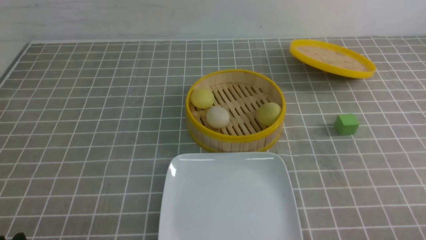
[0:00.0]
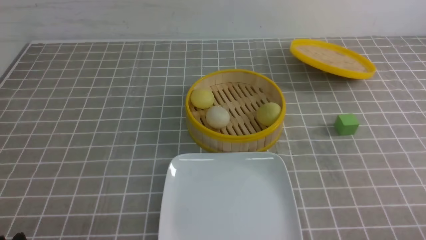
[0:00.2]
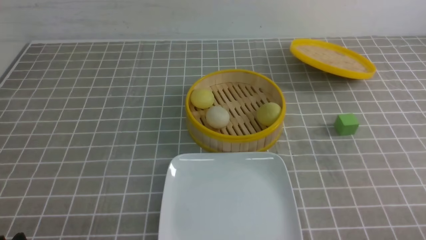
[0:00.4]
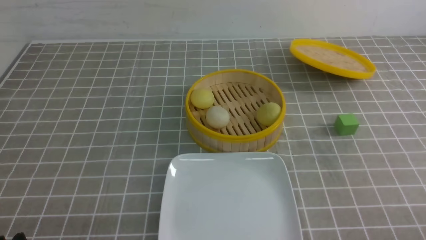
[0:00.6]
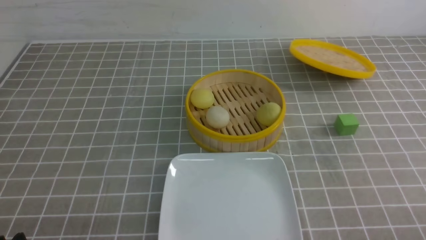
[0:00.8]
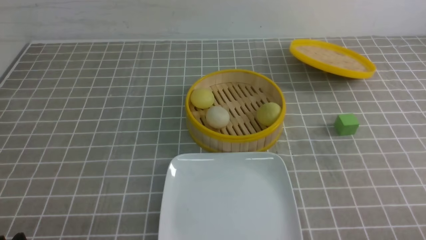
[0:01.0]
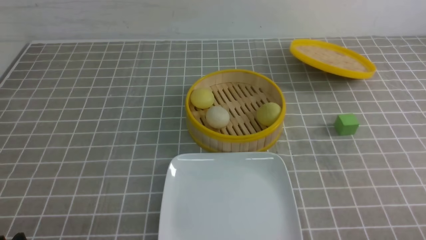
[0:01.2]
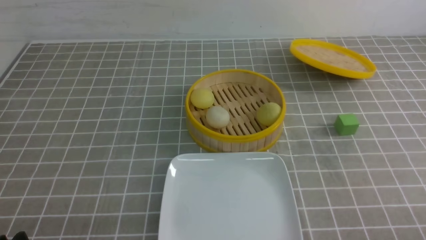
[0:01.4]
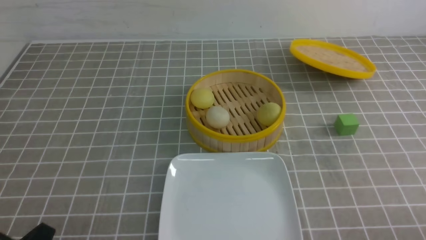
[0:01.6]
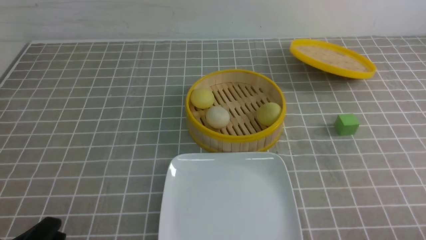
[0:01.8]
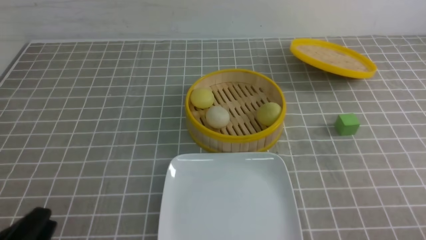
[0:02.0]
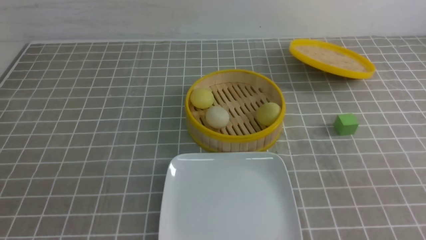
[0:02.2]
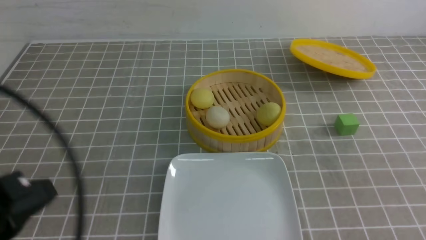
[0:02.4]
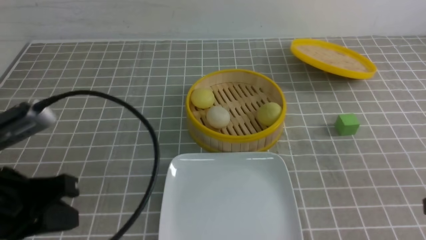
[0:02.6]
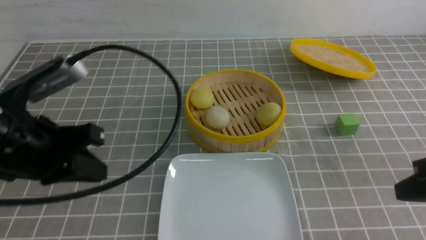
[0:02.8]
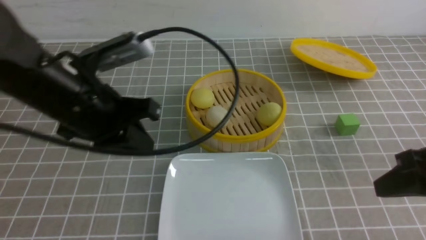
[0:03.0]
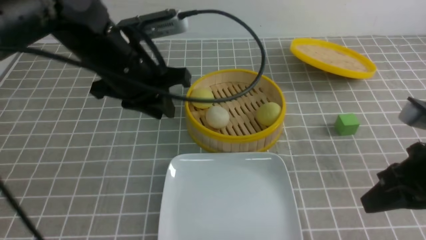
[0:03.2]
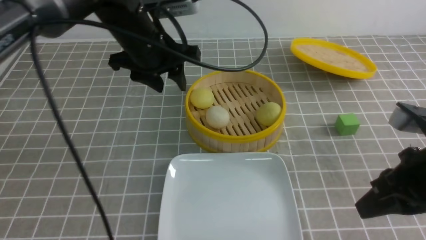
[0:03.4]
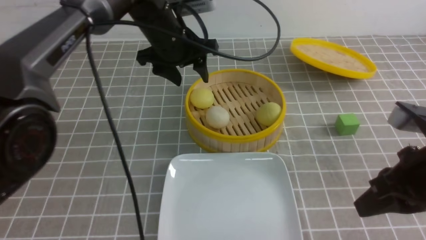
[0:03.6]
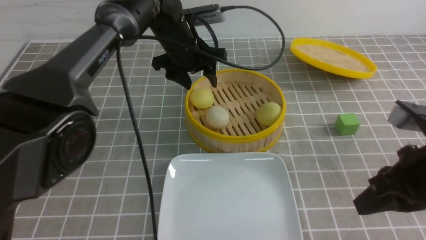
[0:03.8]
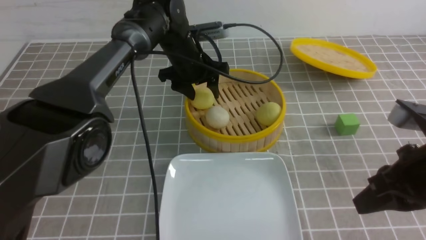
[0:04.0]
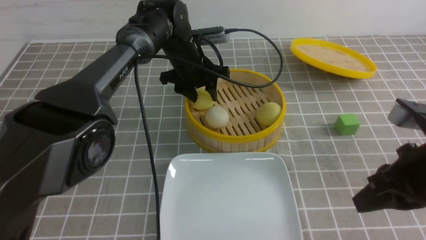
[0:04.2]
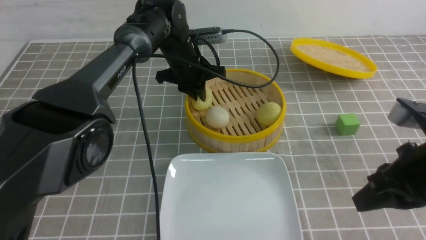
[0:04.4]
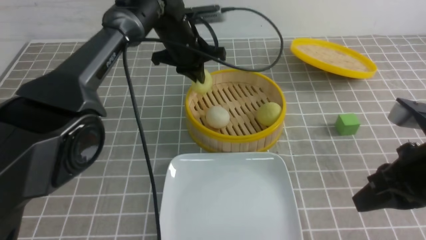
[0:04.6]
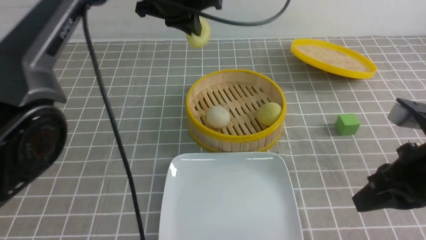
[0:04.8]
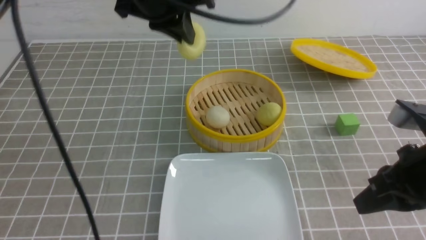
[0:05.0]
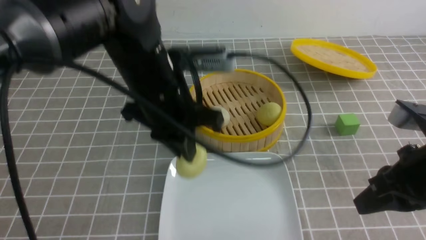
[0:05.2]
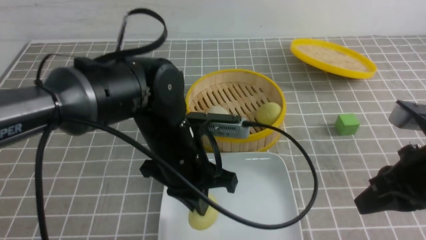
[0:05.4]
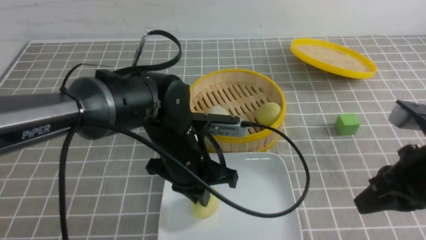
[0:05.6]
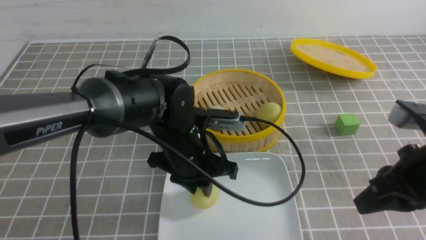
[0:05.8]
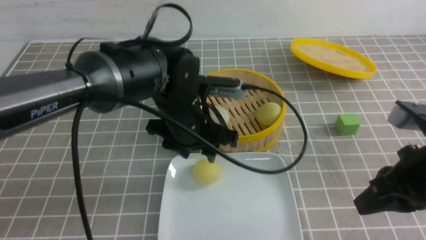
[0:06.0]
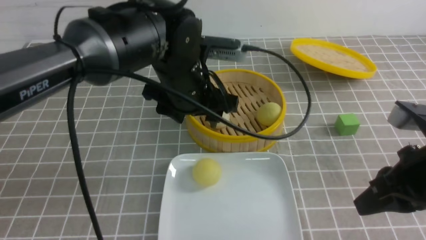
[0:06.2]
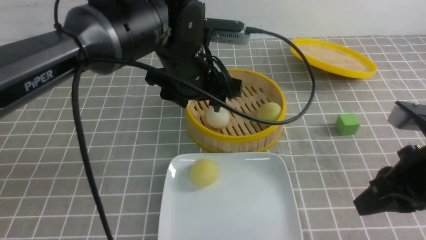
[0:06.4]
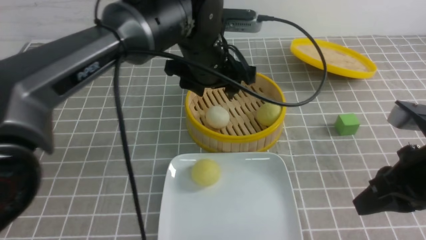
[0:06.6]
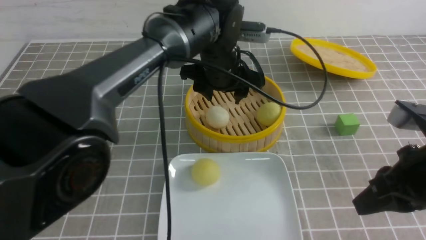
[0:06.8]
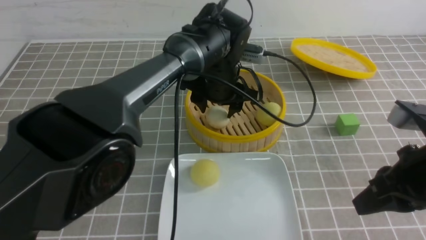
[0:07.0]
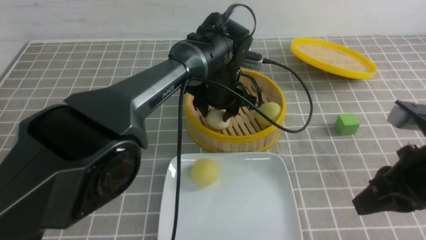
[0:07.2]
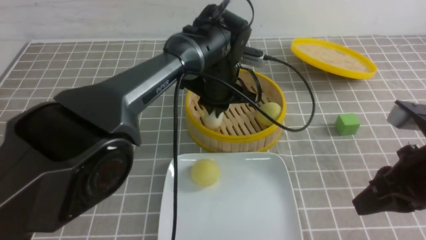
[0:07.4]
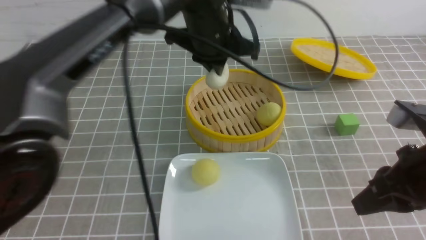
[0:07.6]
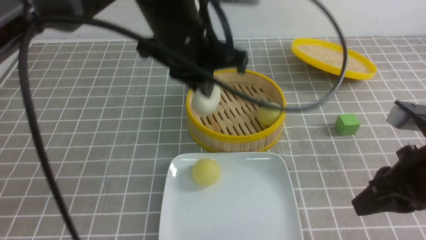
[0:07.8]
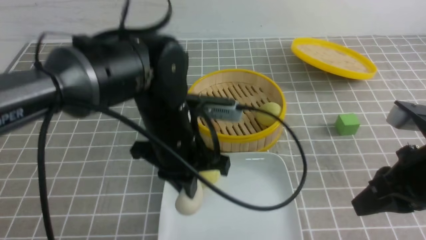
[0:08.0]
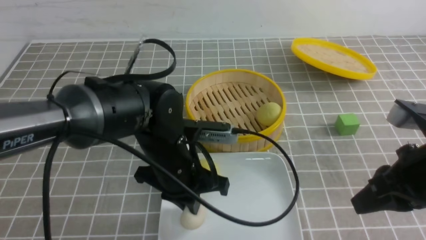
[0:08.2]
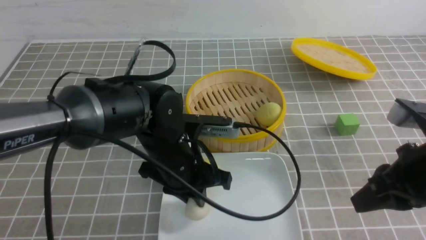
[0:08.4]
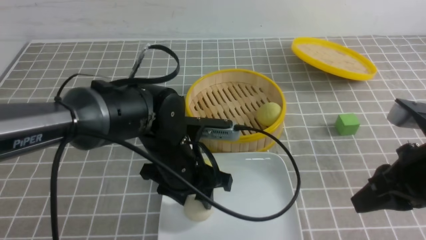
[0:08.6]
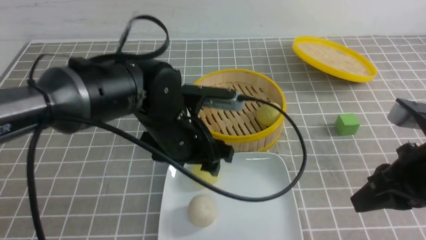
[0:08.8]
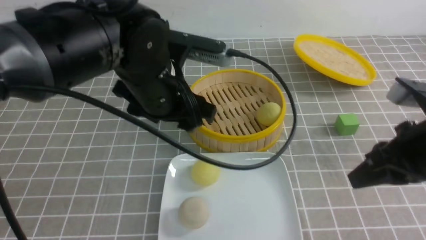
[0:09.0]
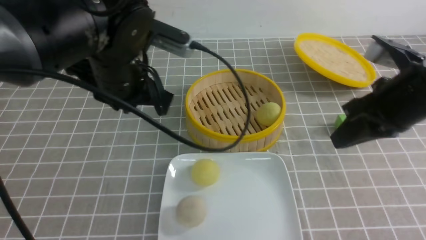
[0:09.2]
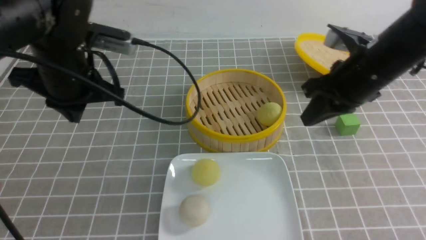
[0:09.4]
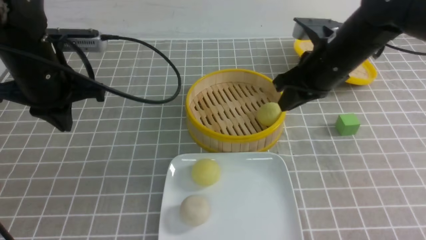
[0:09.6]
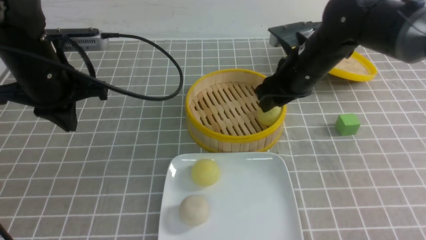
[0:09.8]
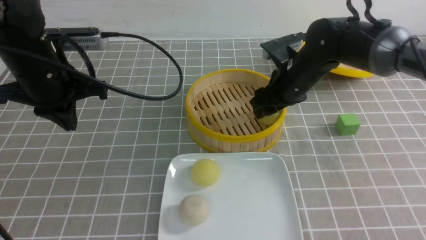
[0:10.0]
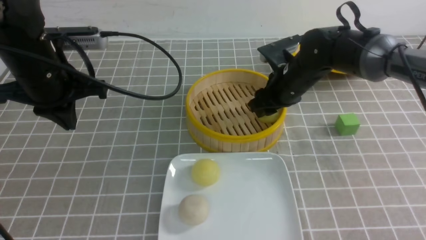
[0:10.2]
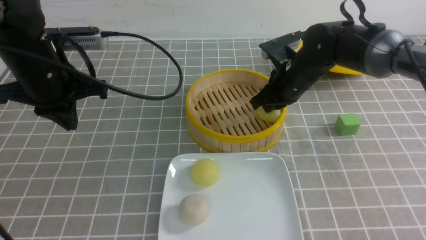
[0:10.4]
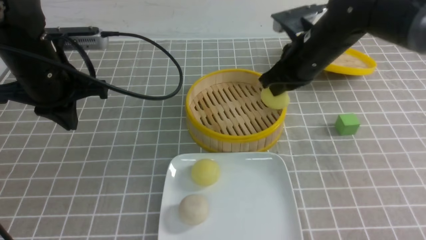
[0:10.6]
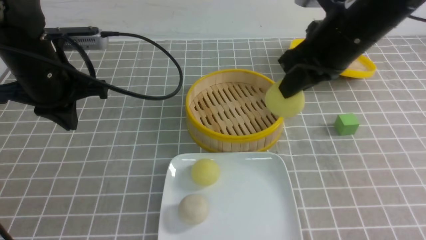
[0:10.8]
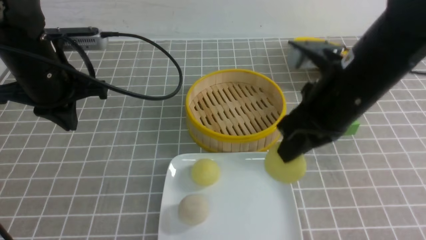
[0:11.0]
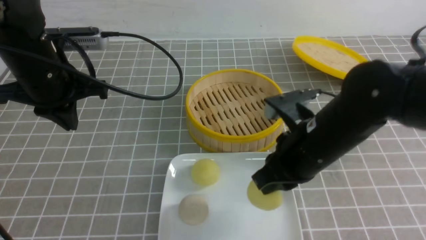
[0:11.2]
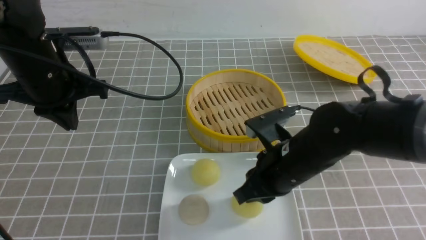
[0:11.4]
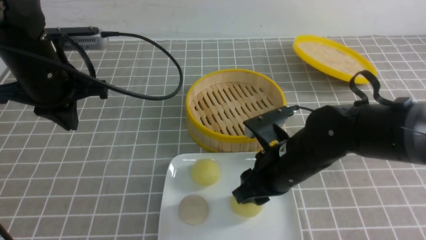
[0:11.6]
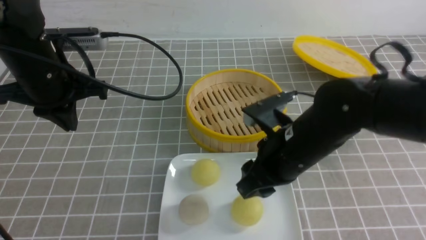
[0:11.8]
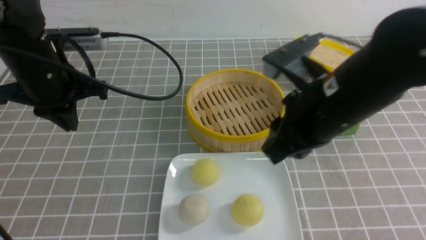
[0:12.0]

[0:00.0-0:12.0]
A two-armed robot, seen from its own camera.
Step, 0:00.0 to 0:04.4: use the left arm to grab the steamed stuffed bun that is closest to it.
Step, 0:04.6 to 0:05.8: use the left arm to put the steamed stuffed bun into the plate.
Step, 0:06.2 to 0:07.4: use the left arm to grab the steamed stuffed bun that is closest to it.
Step, 0:07.6 to 0:08.6: use the left arm to put the steamed stuffed bun into the plate.
Step, 0:08.8 to 0:10.4: use the right arm to grab the steamed stuffed bun that is closest to it.
Step, 0:10.6 to 0:11.6: use the right arm to put the steamed stuffed bun into the plate.
0:01.6 to 0:03.0: The left gripper shifts some 30 cm forward, upward and to the right; the right gripper is displaced forward and upward by approximately 15 cm, and closes up.
0:03.0 to 0:04.4: The left gripper goes roughly 25 cm forward, to the right and downward, and opens, then closes again.
0:04.4 to 0:06.0: The left gripper heads backward, covering some 15 cm, and opens up.
0:06.0 to 0:07.6: The left gripper moves upward and forward, roughly 10 cm, and closes.
0:07.6 to 0:09.0: The left gripper is displaced to the left and backward by approximately 10 cm, moves roughly 15 cm downward and comes back, and opens.
0:09.0 to 0:10.4: The right gripper is displaced forward and to the left by approximately 20 cm, and opens, then closes again; the left gripper is displaced to the left by about 15 cm, and closes its fingers.
0:10.4 to 0:12.0: The right gripper shifts some 20 cm backward and upward, and opens and closes again.

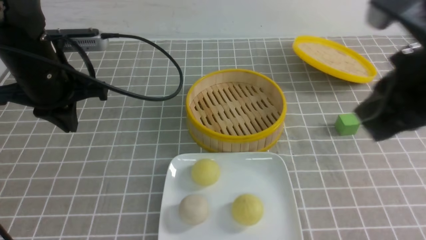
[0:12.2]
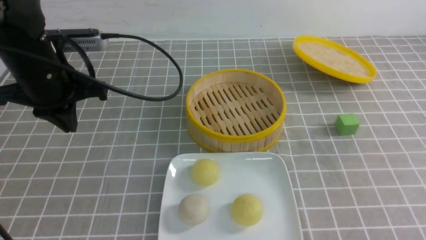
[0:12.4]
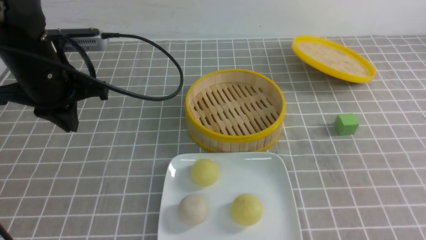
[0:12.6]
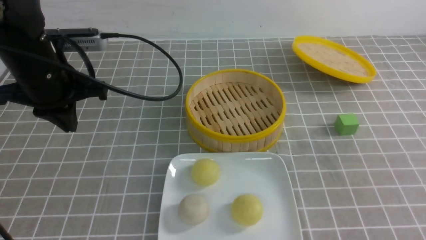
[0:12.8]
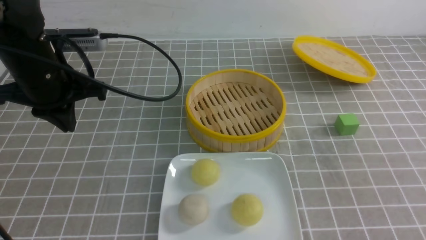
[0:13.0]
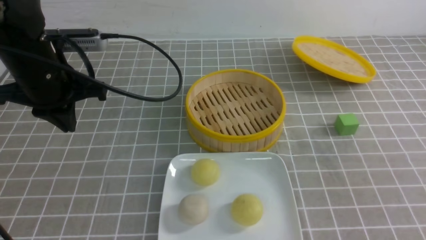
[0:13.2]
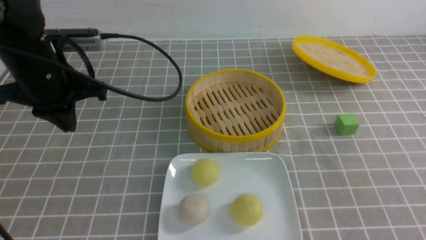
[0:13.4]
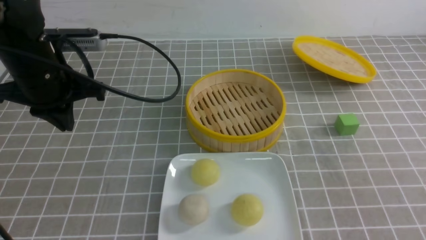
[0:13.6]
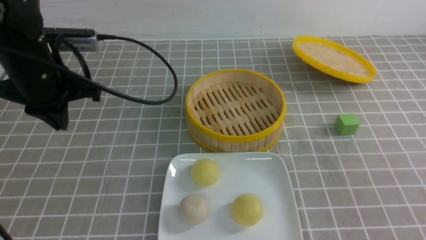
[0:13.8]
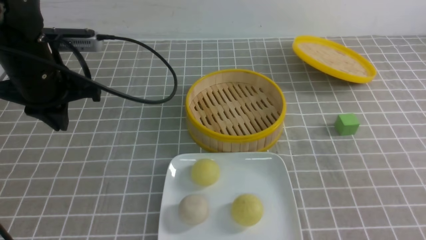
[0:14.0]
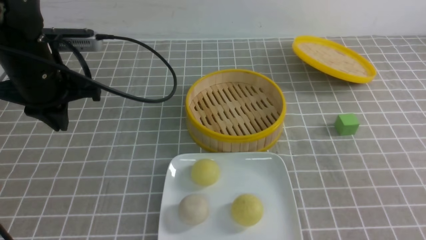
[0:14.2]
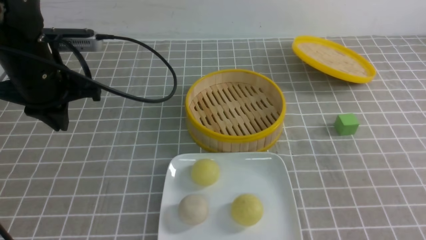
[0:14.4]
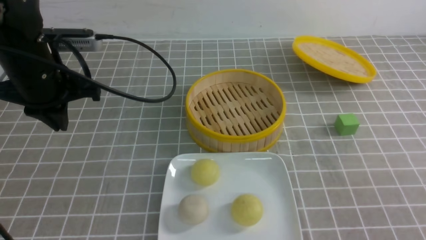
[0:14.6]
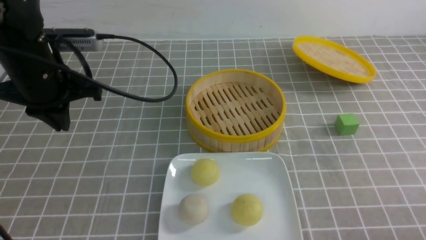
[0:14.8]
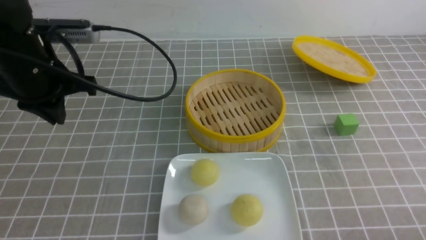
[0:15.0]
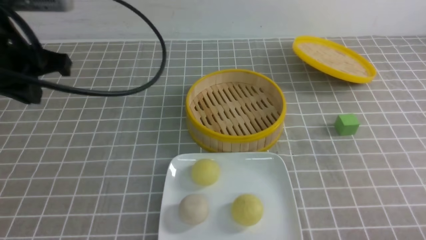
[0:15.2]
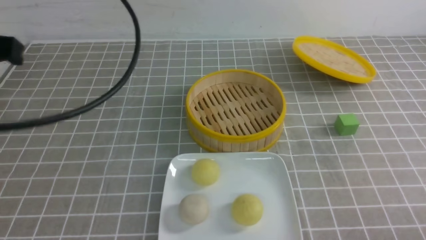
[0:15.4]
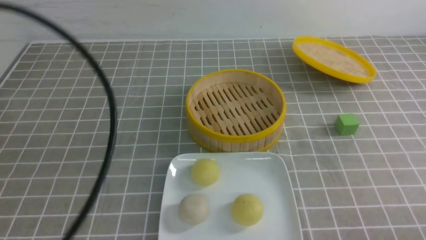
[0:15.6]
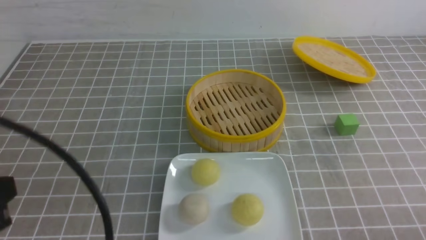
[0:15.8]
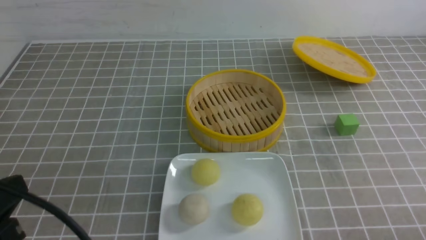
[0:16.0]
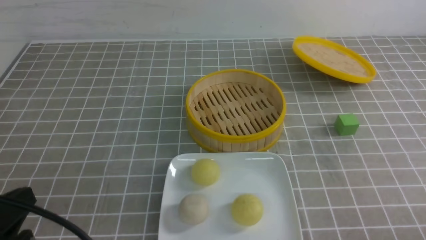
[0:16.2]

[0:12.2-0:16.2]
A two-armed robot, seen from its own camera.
0:12.2 to 0:13.6: The right gripper shifts roughly 15 cm backward, downward and to the right.
0:14.8 to 0:16.2: The left gripper is displaced backward by about 25 cm.
